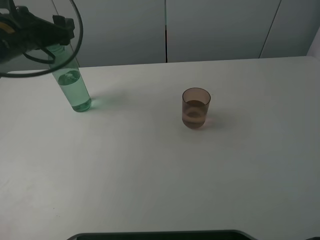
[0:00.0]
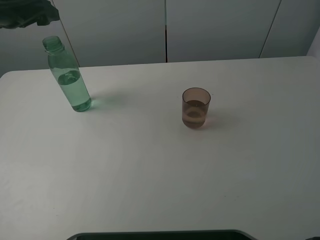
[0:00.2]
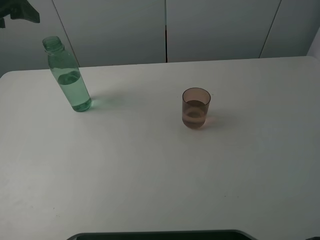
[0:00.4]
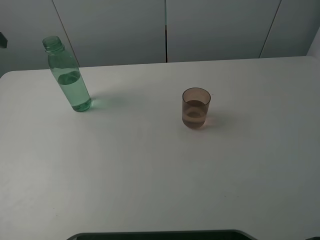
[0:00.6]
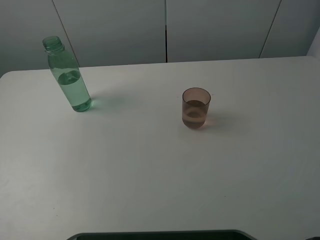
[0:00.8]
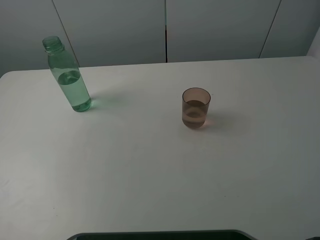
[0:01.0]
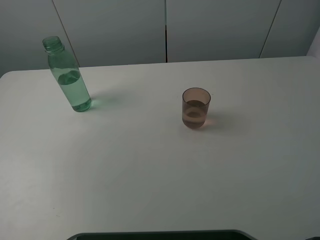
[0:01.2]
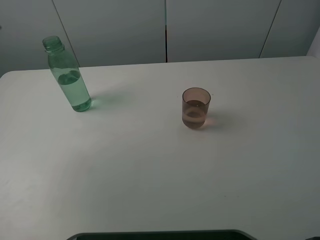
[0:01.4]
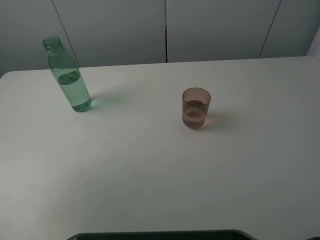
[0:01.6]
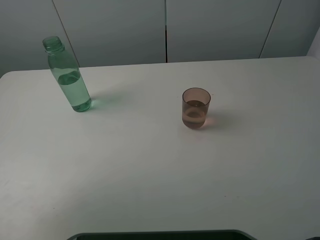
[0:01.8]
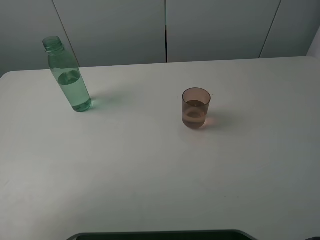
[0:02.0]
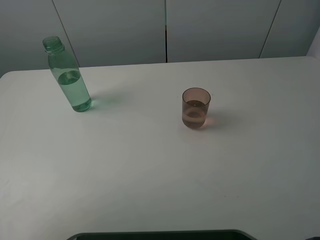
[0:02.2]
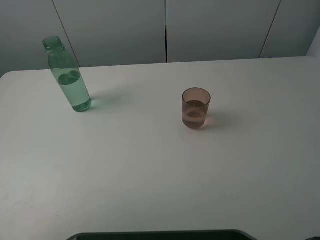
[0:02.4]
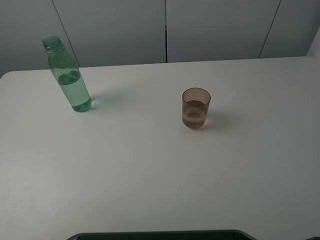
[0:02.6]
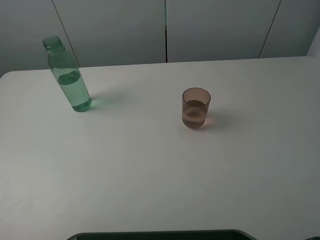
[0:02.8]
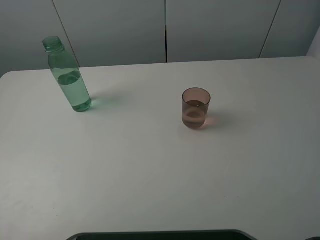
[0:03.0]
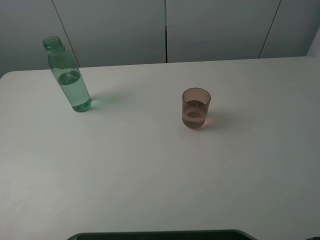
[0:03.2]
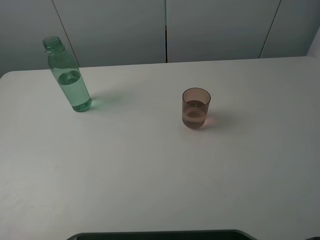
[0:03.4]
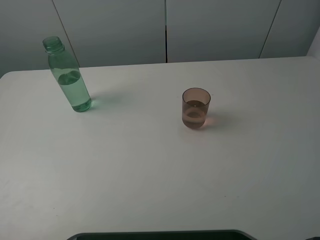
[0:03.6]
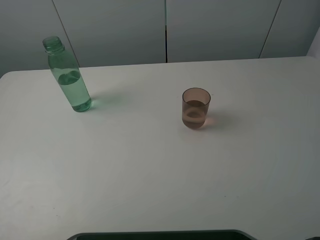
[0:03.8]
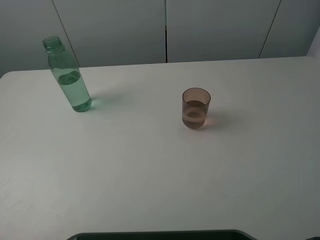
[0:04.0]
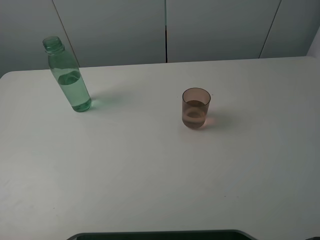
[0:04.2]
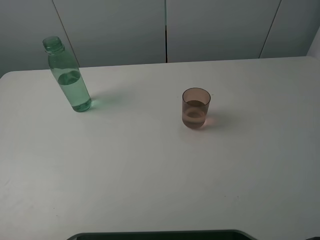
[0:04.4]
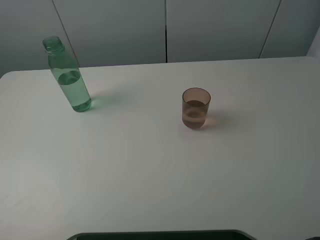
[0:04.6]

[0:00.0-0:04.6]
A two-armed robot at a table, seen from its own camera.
Task of the whole recording: pick up the bottle filled with water and pour it into the pink cup.
0:00.0 to 0:01.6: The left gripper heads backward and to the left, covering some 20 cm.
0:01.6 to 0:03.0: The left gripper is displaced backward by roughly 15 cm.

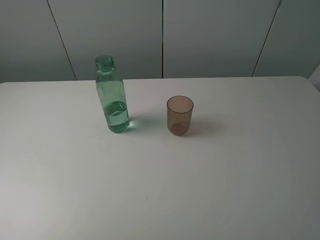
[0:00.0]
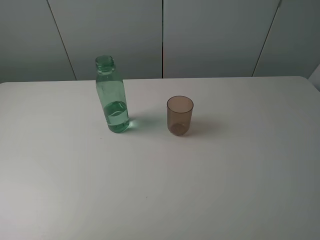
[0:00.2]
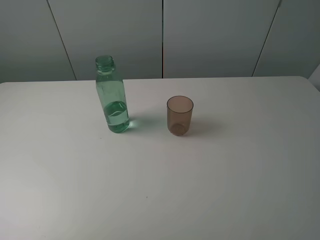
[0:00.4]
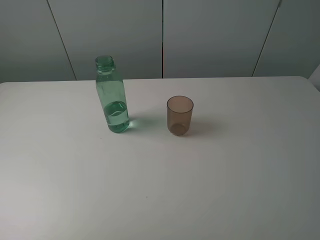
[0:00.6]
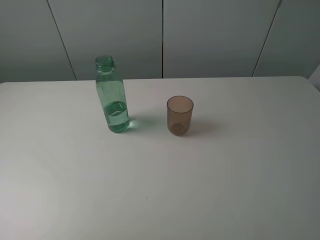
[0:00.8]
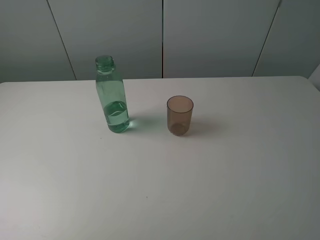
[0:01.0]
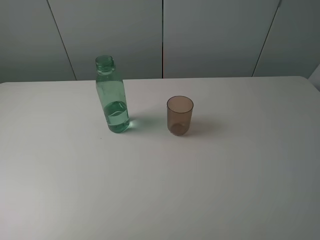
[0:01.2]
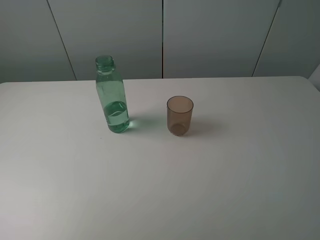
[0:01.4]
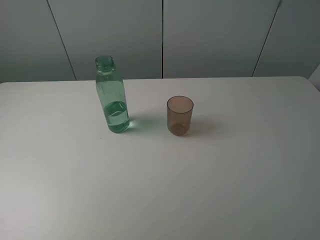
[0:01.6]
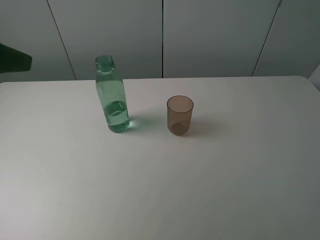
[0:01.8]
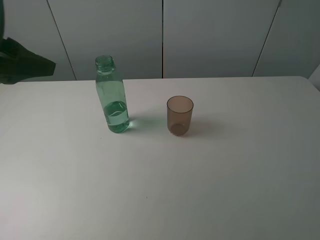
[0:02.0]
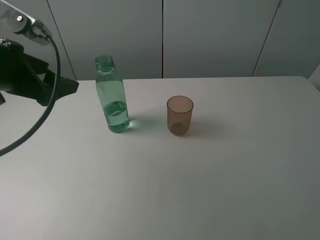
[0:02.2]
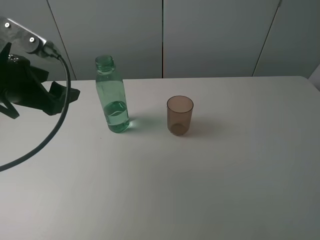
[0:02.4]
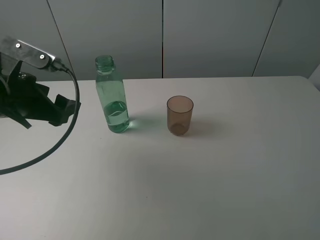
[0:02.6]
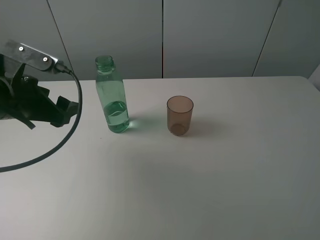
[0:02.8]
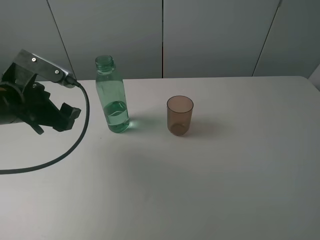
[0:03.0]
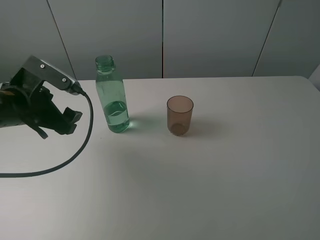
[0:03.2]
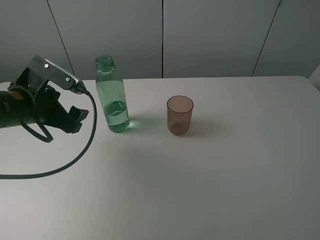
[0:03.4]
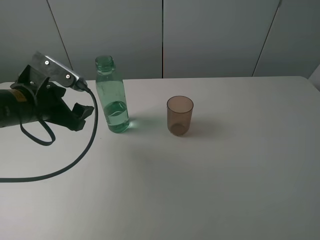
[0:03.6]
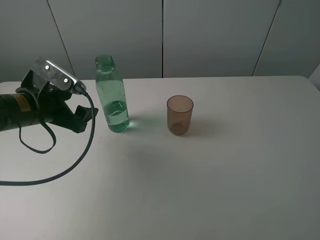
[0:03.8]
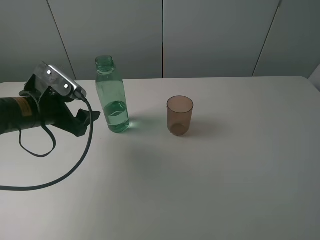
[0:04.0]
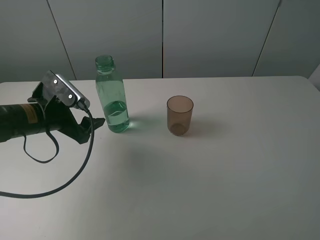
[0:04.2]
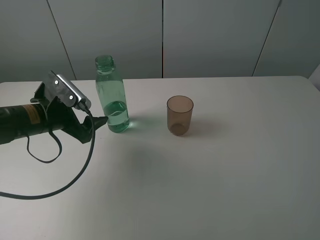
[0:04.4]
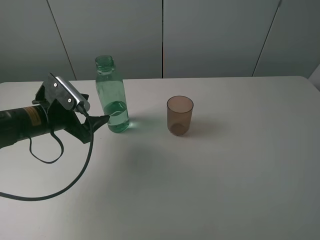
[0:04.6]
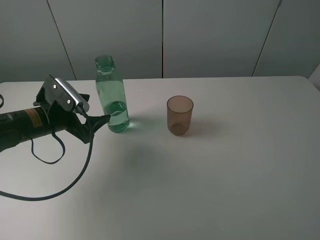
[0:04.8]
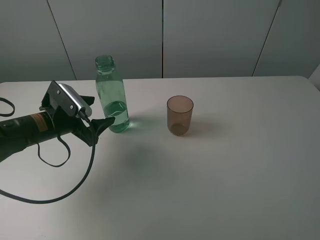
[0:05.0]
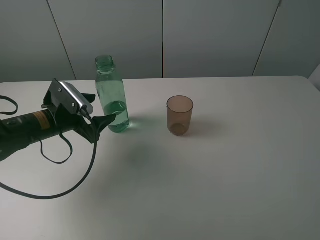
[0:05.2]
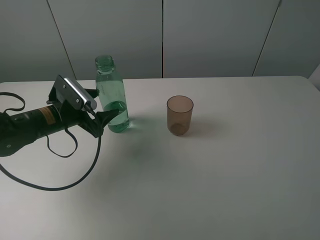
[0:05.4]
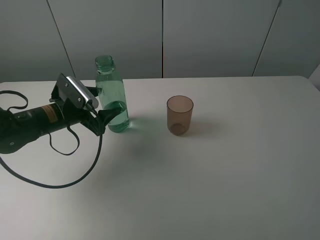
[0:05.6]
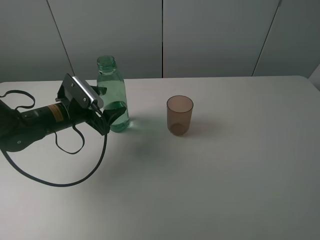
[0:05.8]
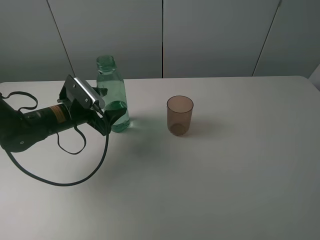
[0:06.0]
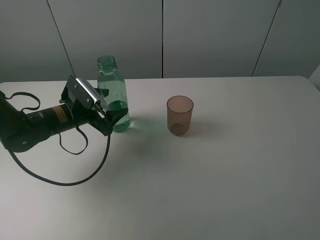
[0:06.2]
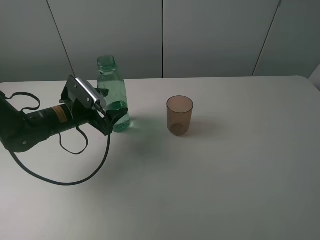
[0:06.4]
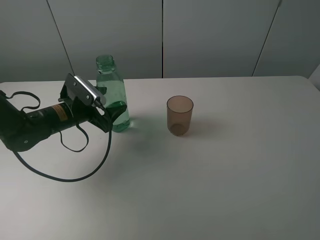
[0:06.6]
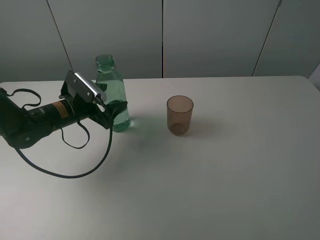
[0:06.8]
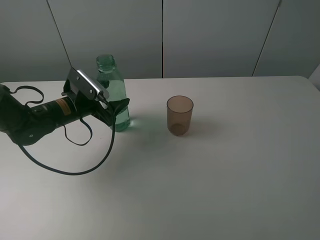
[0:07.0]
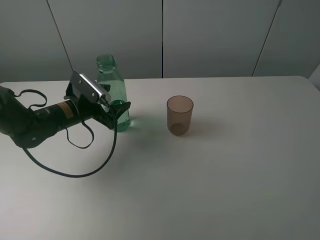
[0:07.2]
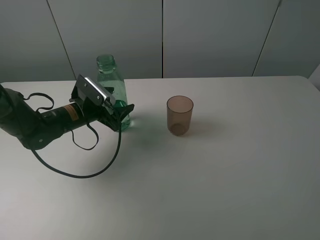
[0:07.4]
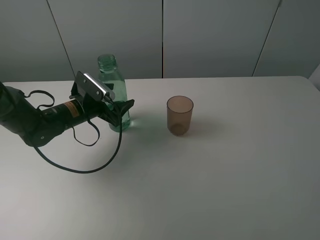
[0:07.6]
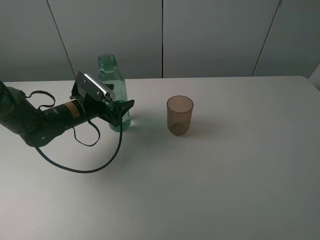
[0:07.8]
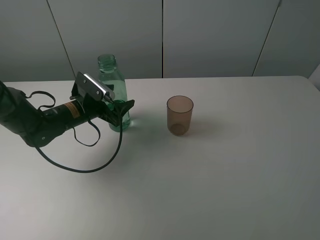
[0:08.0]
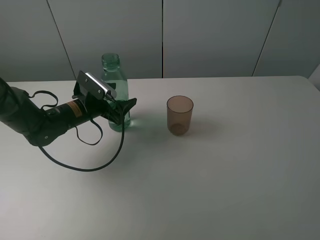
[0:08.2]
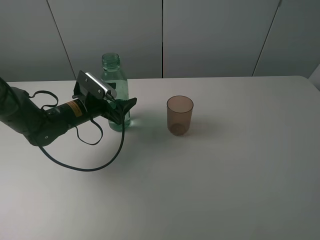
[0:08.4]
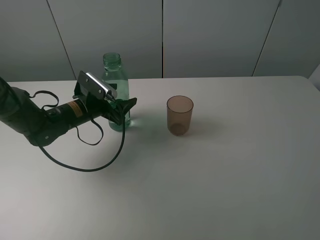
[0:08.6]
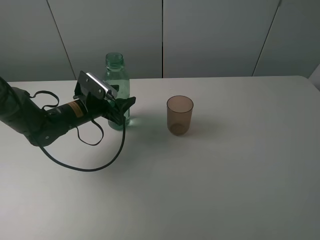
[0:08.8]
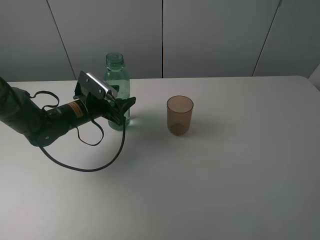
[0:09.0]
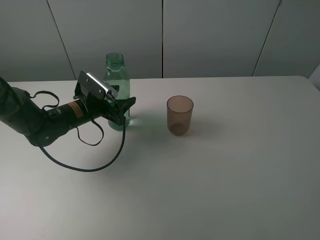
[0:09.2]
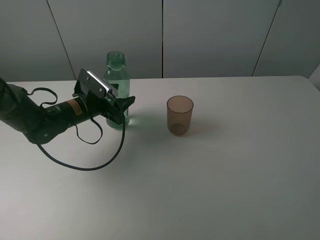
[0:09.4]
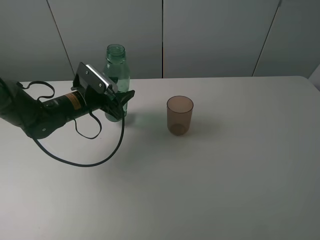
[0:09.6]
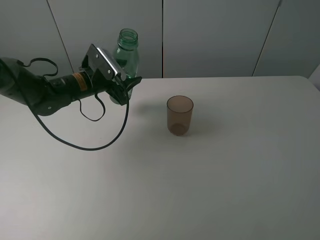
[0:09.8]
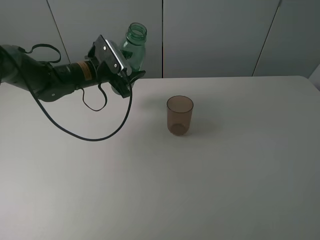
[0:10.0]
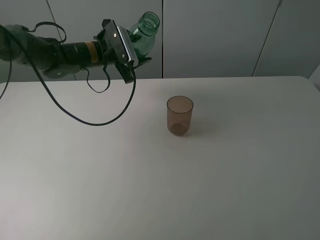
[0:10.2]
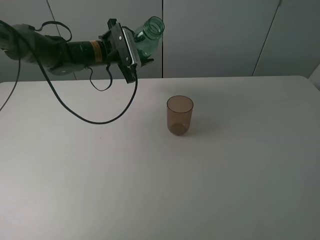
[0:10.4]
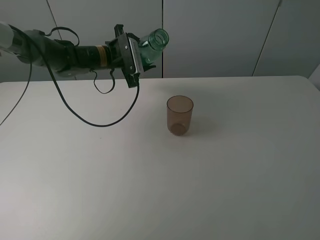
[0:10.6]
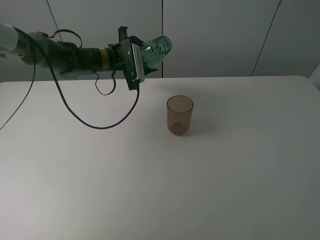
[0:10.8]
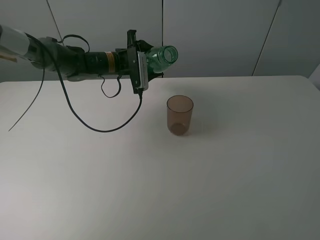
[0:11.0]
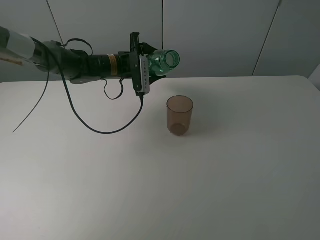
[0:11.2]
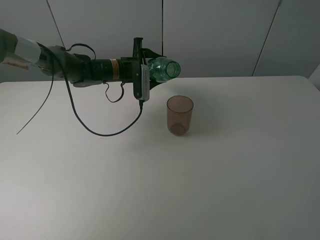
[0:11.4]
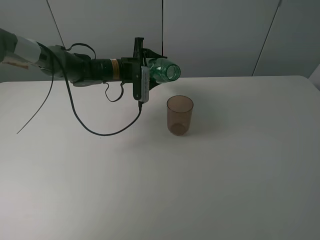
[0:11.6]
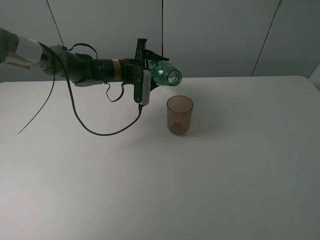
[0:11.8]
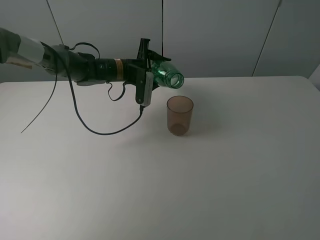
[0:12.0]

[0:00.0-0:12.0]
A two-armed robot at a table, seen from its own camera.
Task of the whole recording: pick up the bottle filled with water and pour it into the pink cup.
Step, 0:00.0 to 0:09.2: Grasp the green bottle with the left gripper.
0:01.6 to 0:03.0: The left gripper goes some 20 cm downward and forward.
0:03.0 to 0:04.4: The left gripper heads downward, covering roughly 5 cm.
0:04.4 to 0:06.0: The left gripper ends up about 5 cm from where it was.
0:06.0 to 0:07.6: There are only small adjustments of the grippers.
0:07.6 to 0:09.0: The left gripper closes its fingers.
0:09.0 to 0:10.4: The left gripper shifts approximately 15 cm upward and forward.
0:10.4 to 0:12.0: The left gripper is displaced downward by about 5 cm.

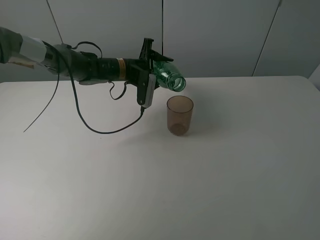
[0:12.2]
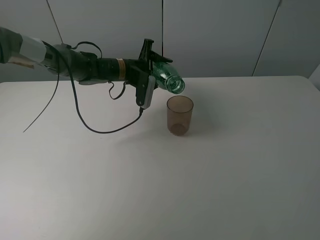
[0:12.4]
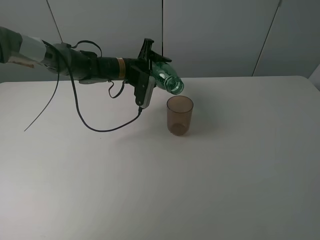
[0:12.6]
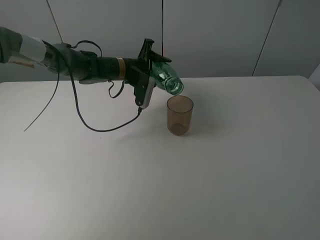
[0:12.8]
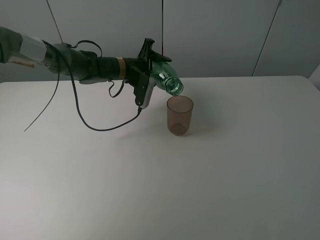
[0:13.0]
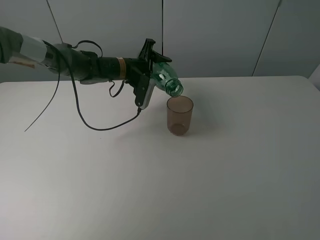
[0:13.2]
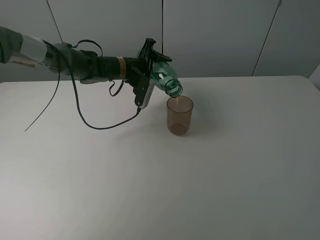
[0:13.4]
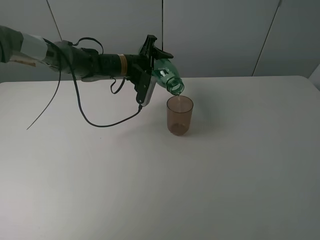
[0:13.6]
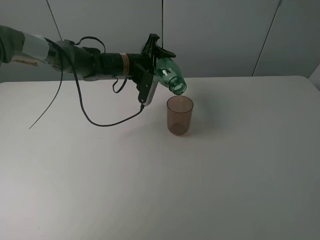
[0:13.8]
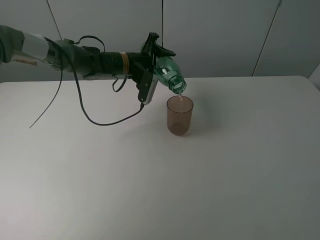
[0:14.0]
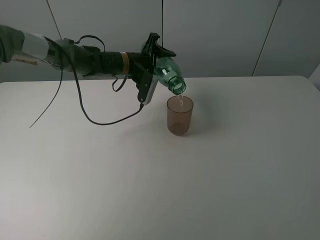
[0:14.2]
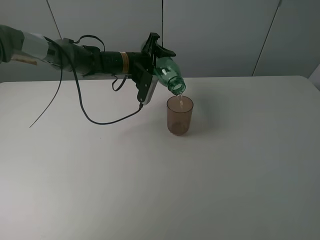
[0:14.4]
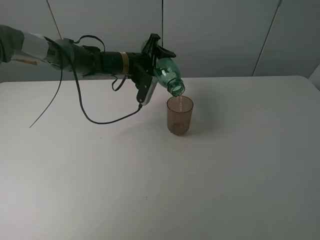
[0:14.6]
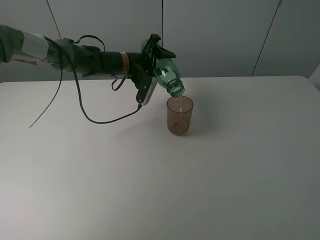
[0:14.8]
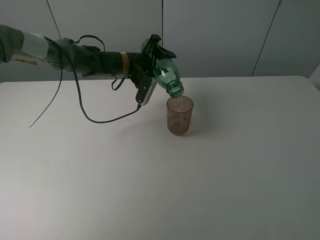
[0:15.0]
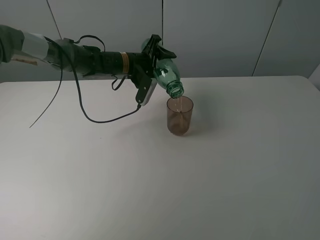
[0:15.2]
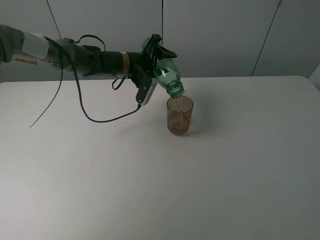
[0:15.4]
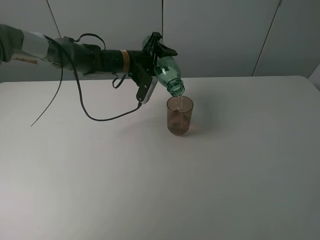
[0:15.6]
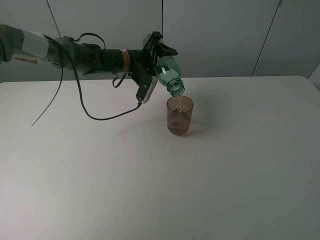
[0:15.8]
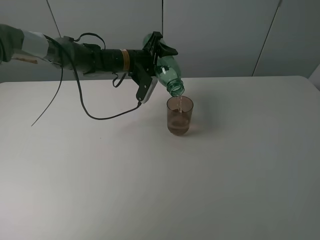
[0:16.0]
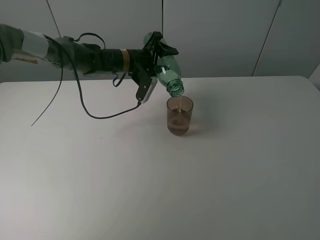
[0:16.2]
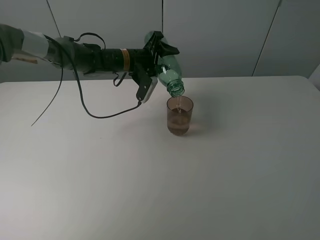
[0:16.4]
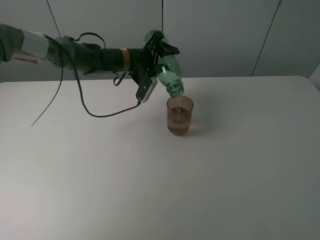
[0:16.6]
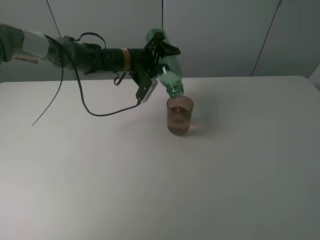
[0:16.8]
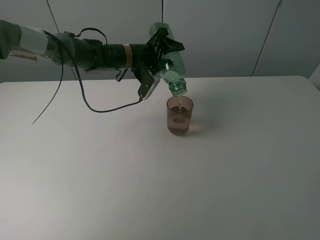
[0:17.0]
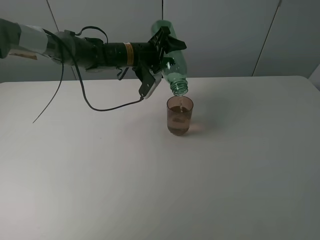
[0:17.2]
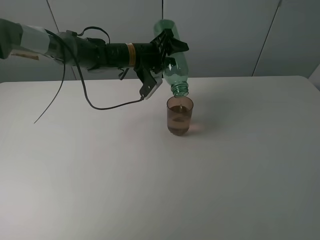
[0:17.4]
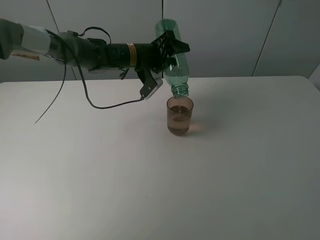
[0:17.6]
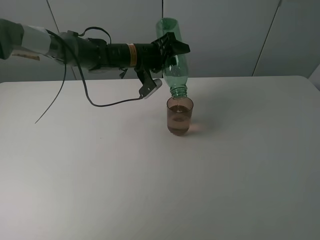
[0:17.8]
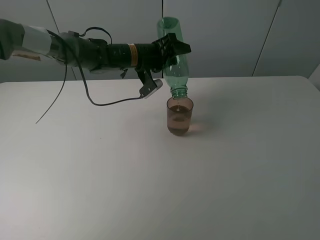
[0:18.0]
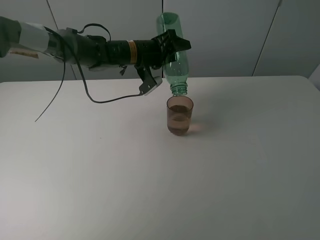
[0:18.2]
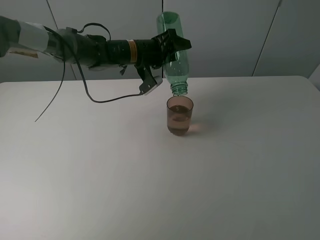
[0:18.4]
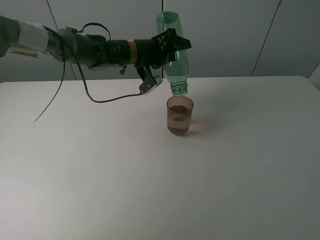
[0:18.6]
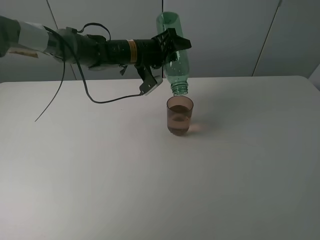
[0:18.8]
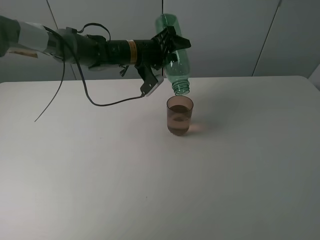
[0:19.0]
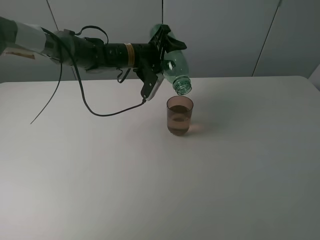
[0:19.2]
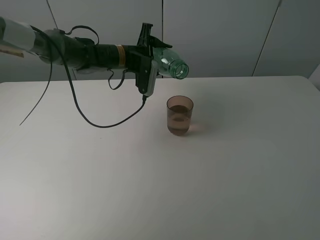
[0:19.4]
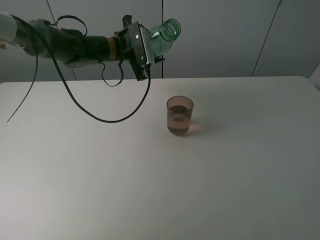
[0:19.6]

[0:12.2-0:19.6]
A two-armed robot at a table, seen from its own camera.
Task of the whole recording: pick up the bottle filled with water and pour it into the pink cup.
Step, 0:12.2 to 0:18.4: Pour water from green bottle to pink cup with the left gripper.
0:12.2 to 0:13.6: The grippers make only small movements.
0:13.6 to 0:16.6: The grippers stay close to where they were, moving slightly.
